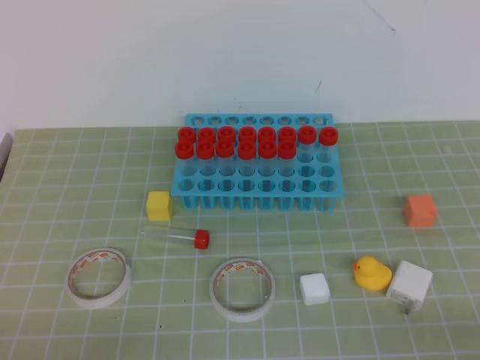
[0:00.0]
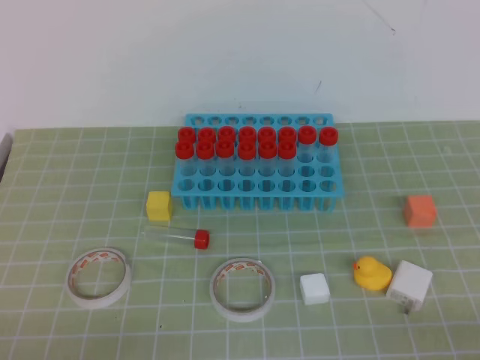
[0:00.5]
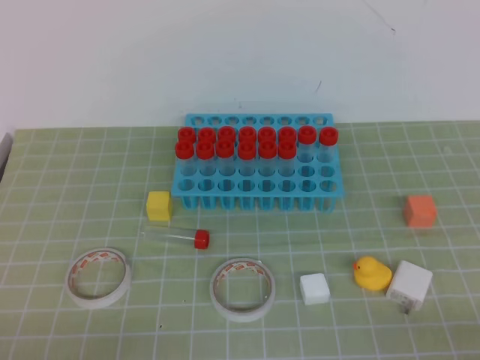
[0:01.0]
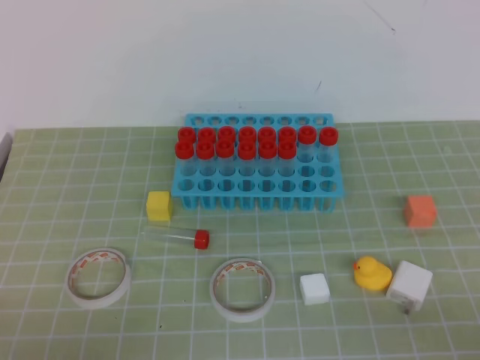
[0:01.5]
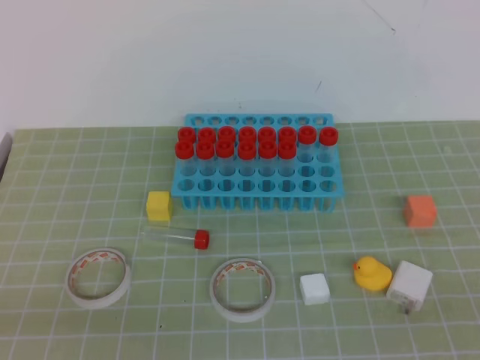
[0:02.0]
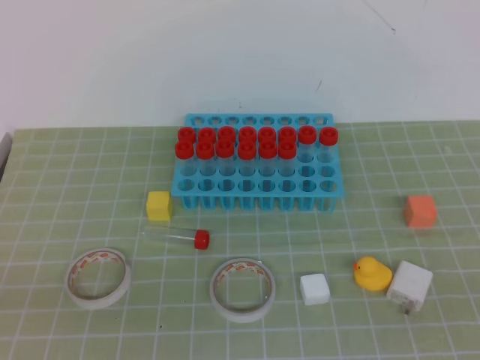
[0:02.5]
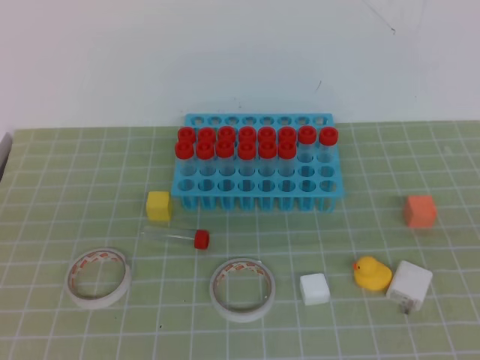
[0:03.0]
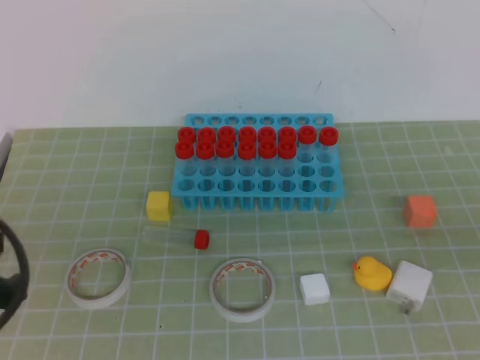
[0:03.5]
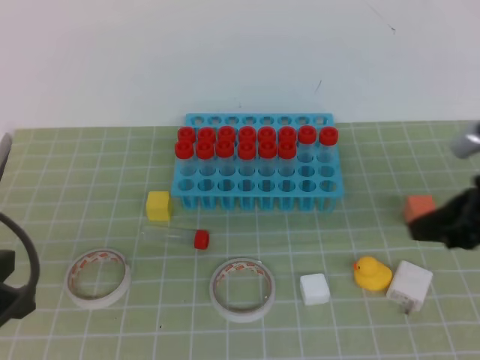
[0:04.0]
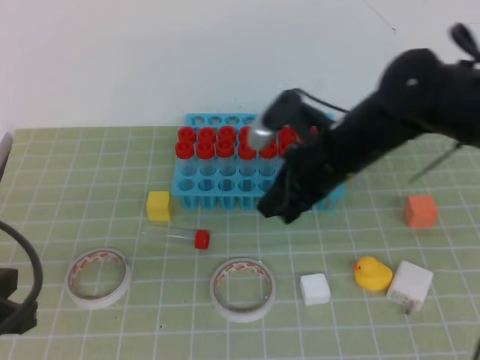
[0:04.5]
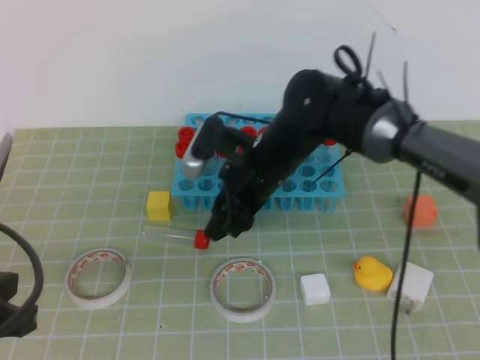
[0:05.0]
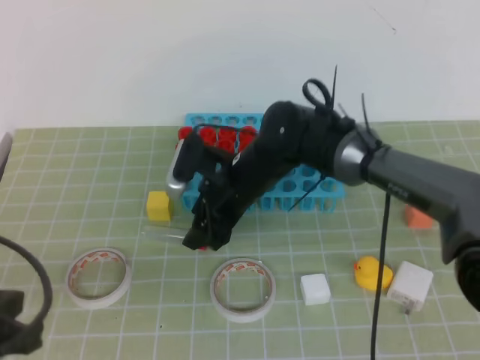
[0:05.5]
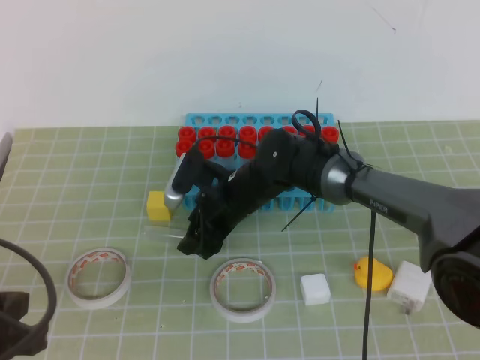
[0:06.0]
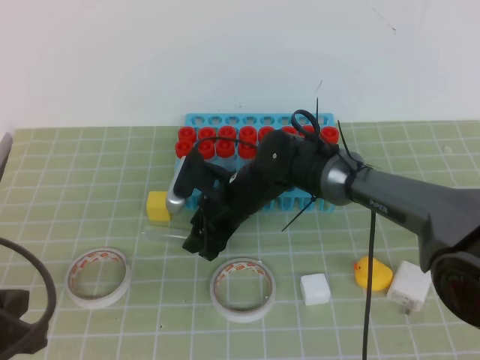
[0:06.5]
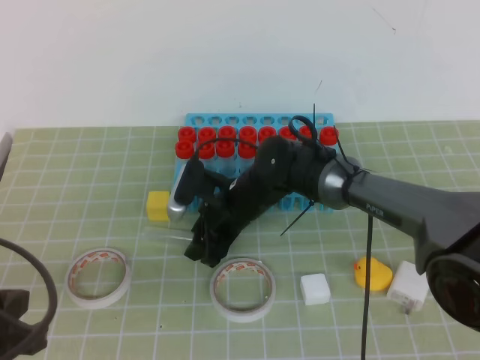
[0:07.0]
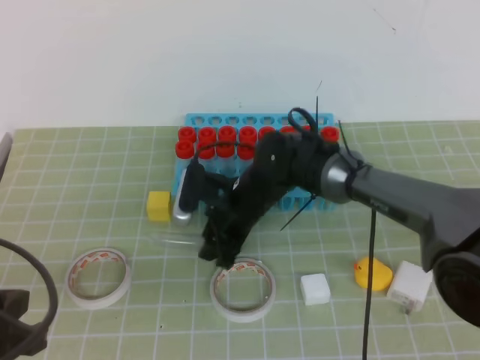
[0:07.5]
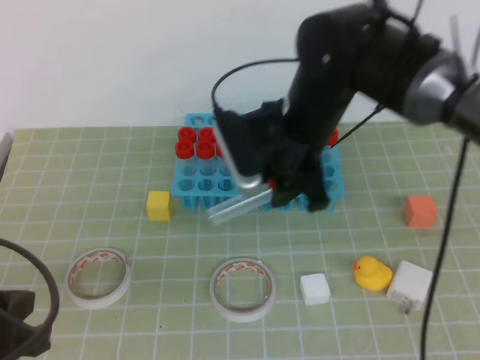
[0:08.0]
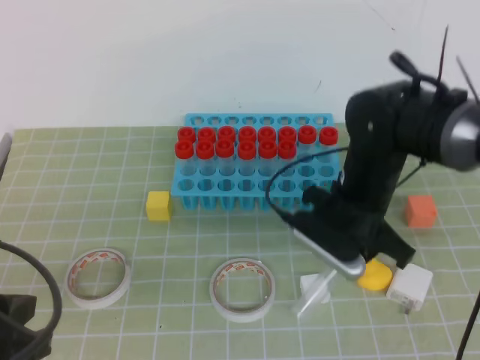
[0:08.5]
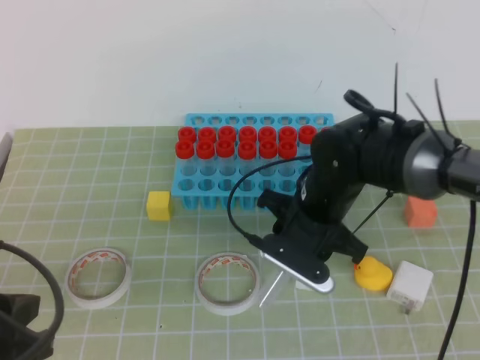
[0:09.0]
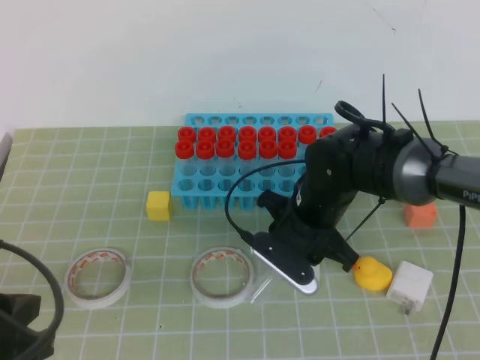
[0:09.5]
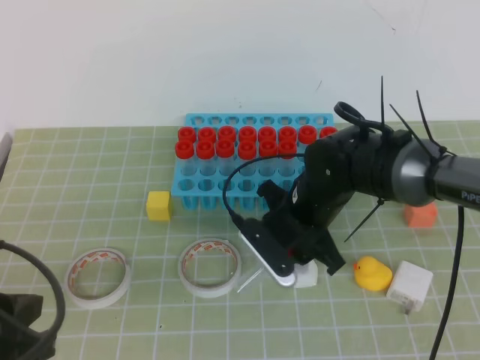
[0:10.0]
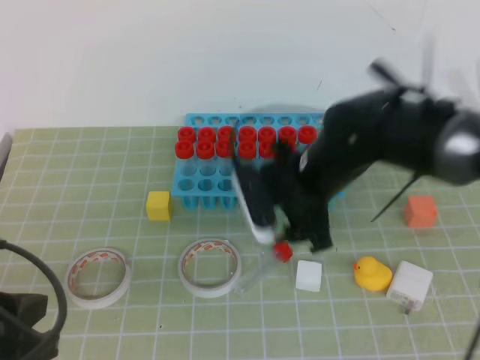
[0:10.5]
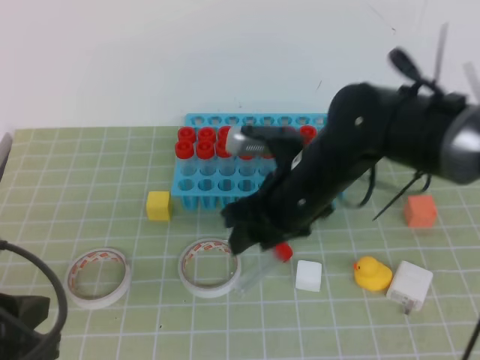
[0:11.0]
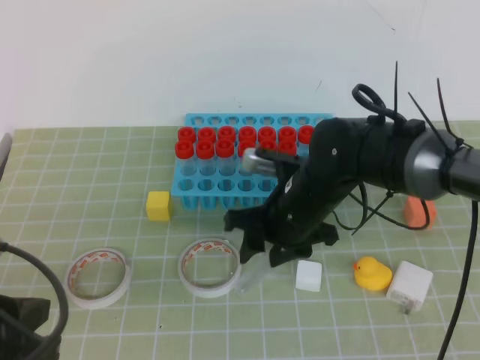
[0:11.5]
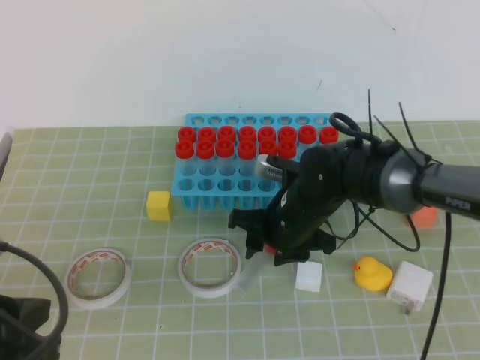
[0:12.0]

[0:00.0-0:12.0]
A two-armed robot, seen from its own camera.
2.0 to 4.0 s: The left gripper goes some 15 cm forward and upward; the right gripper is displaced forward by about 25 cm.
4.0 to 6.0 s: The right gripper heads to the left, forward and downward, covering some 35 cm, and opens its fingers.
6.0 to 8.0 s: The right gripper travels upward and to the right by approximately 15 cm, and closes up.
8.0 to 10.0 s: The right gripper is displaced downward by approximately 10 cm.
10.0 to 12.0 s: The right gripper goes upward and returns, approximately 5 cm each way.

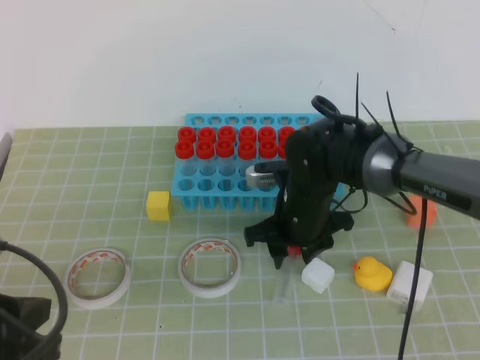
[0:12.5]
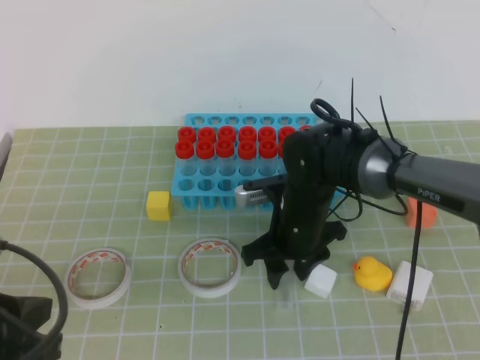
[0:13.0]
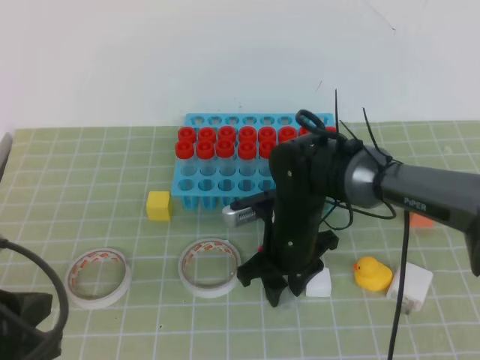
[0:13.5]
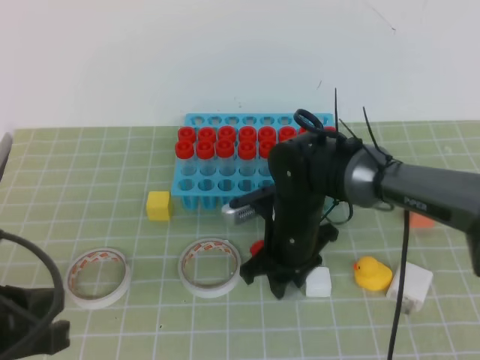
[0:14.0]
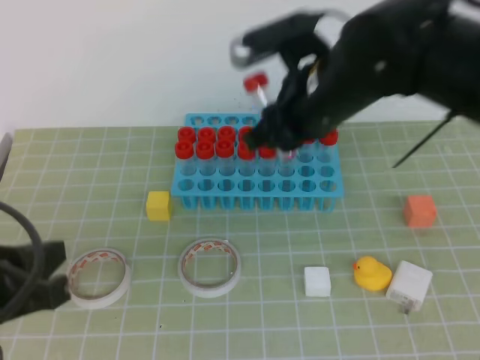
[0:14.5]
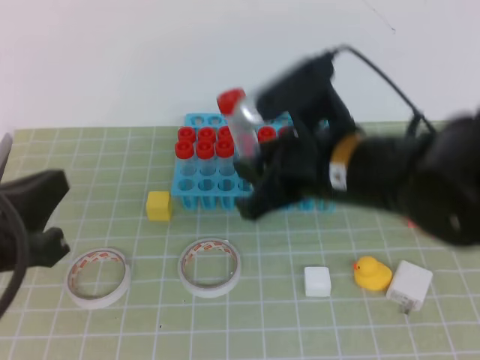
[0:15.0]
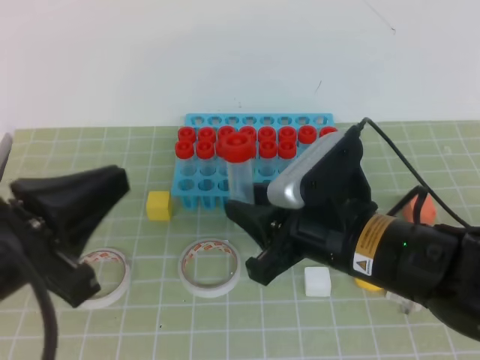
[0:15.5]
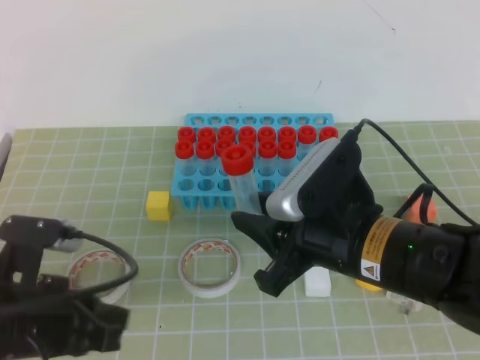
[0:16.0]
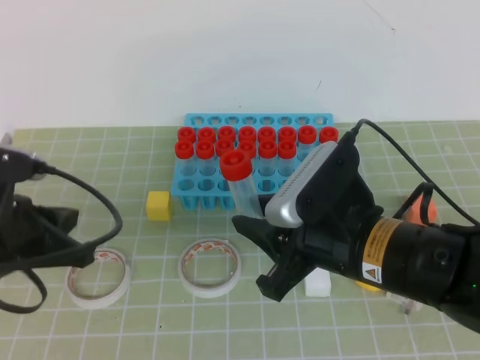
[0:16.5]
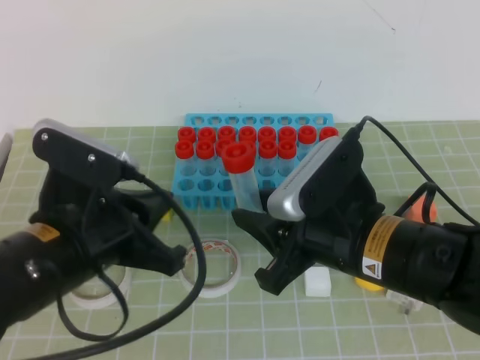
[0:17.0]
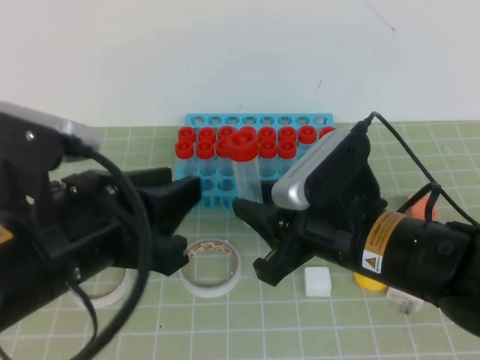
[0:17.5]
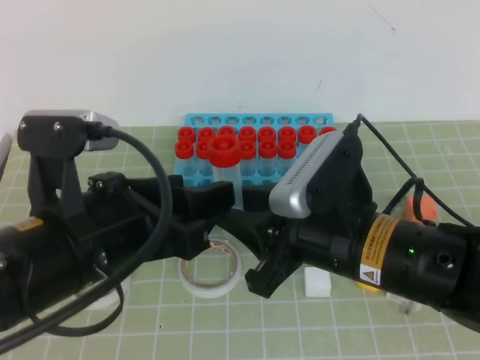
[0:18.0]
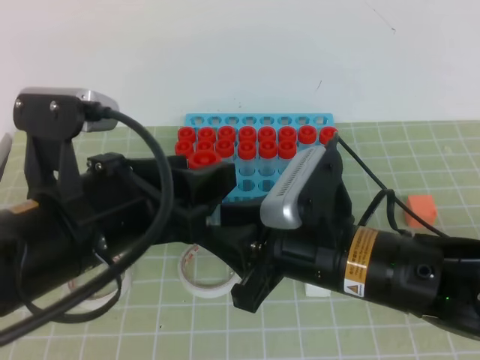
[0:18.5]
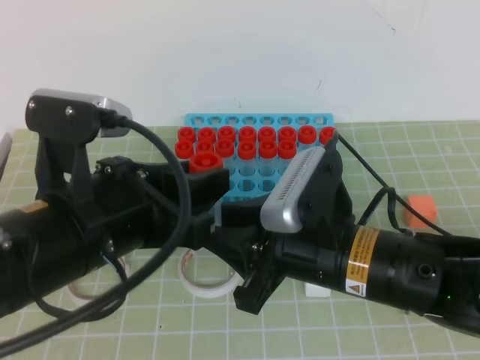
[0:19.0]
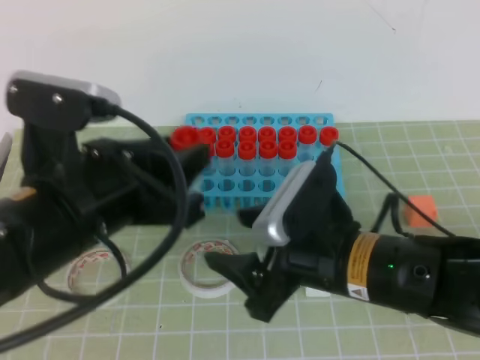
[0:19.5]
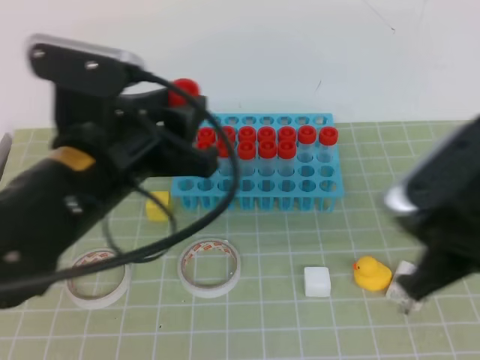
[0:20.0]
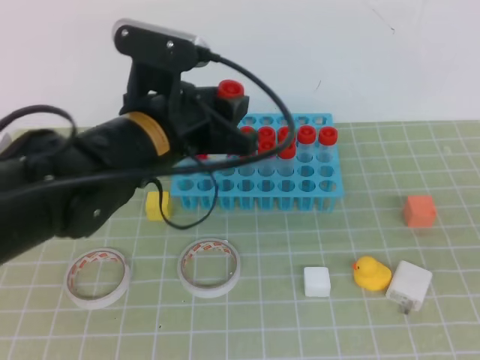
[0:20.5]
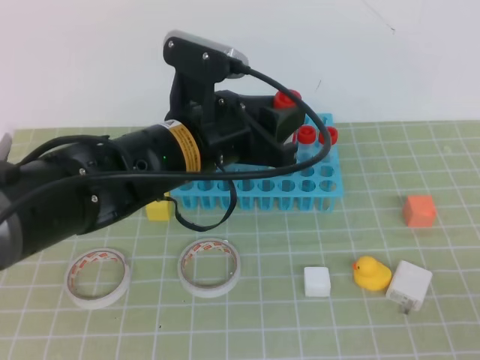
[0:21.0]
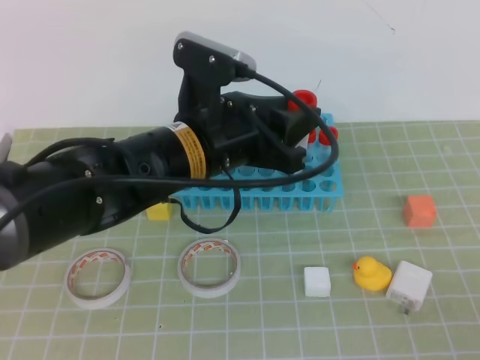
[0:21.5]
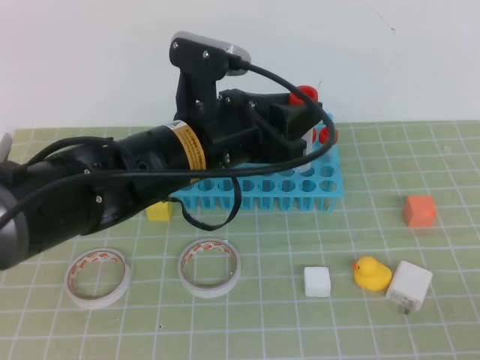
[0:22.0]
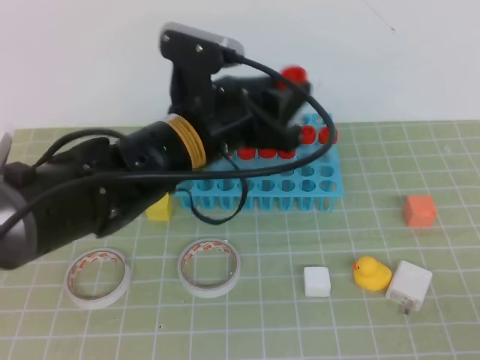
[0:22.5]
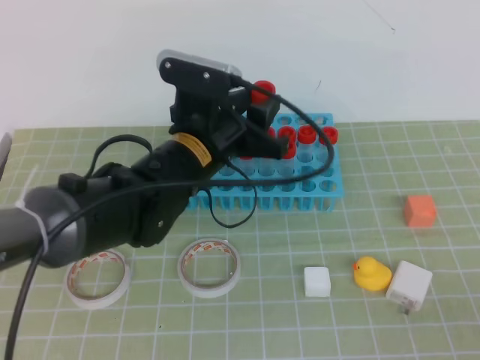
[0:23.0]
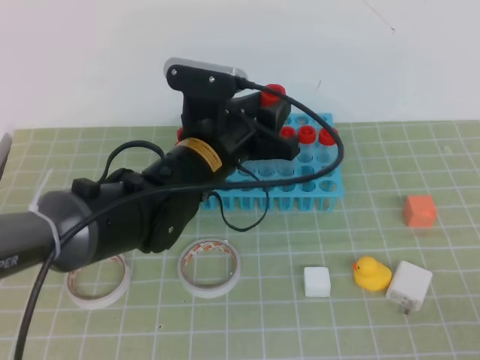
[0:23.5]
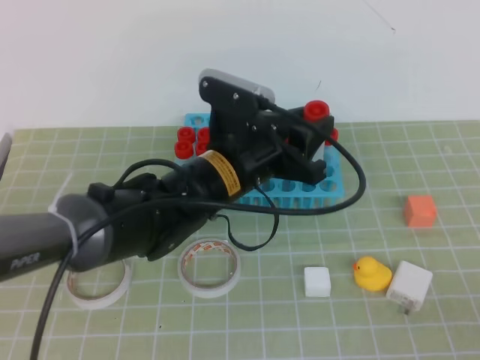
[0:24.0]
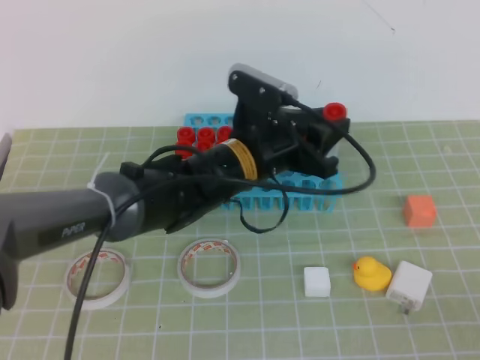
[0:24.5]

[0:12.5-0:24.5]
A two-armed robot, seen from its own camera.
12.5 to 14.5 s: The right gripper is displaced upward by approximately 15 cm.
14.5 to 16.5 s: The right gripper moves backward and downward, roughly 15 cm; the left gripper moves forward, about 5 cm.
16.5 to 18.5 s: The left gripper heads to the right and upward, covering about 10 cm, and opens its fingers.
18.5 to 20.5 s: The right gripper is displaced to the right, backward and upward by approximately 25 cm, and closes its fingers; the left gripper goes approximately 10 cm forward, and closes its fingers.
20.5 to 22.5 s: The right gripper heads backward, covering some 10 cm.
22.5 to 24.5 s: The left gripper is displaced downward and forward by approximately 10 cm.

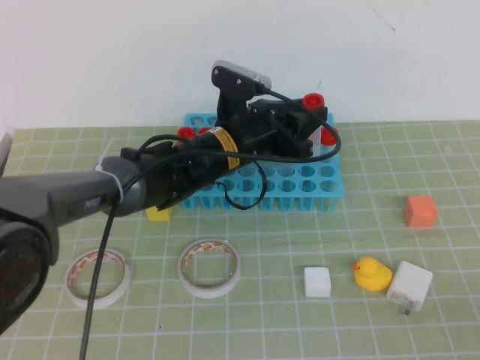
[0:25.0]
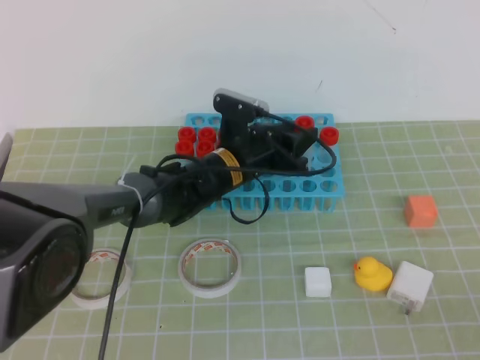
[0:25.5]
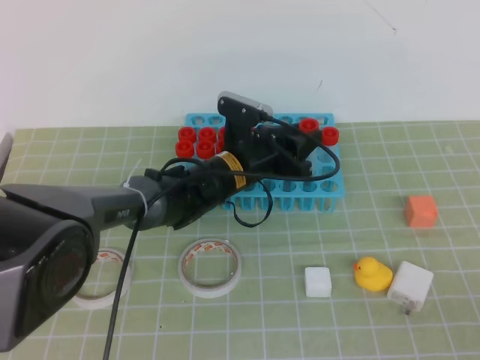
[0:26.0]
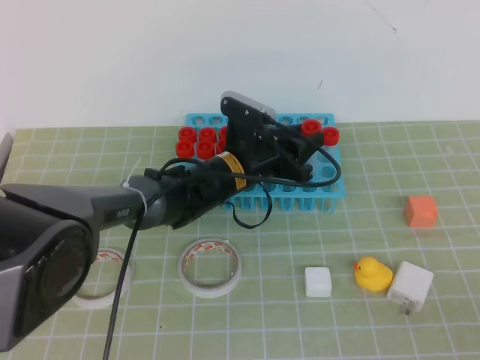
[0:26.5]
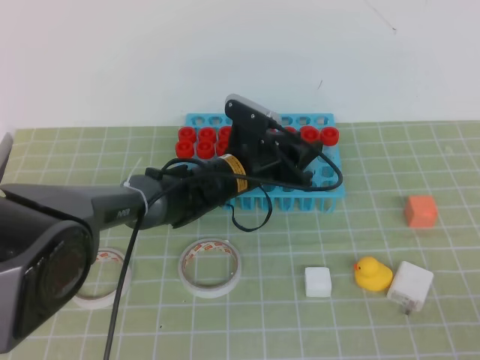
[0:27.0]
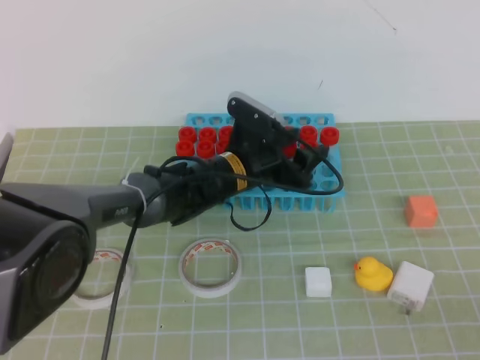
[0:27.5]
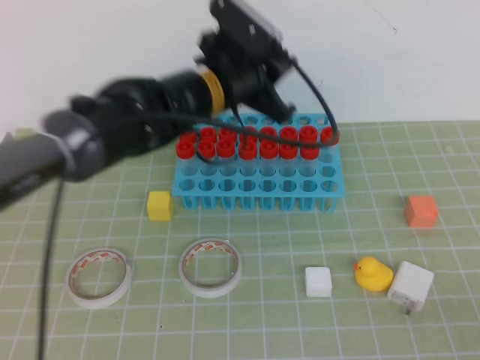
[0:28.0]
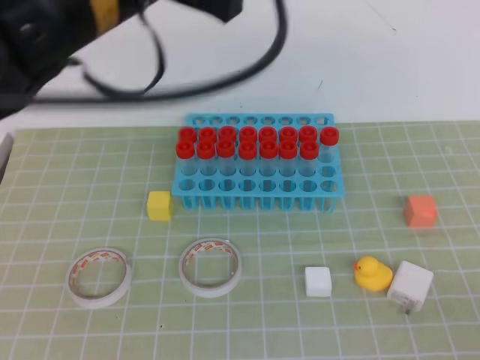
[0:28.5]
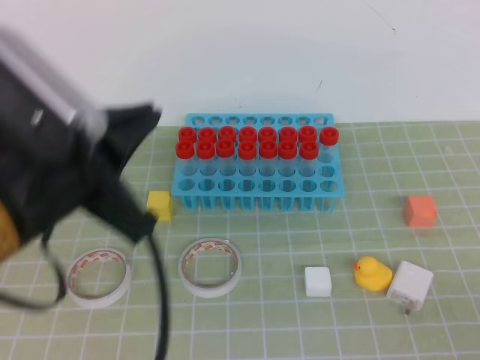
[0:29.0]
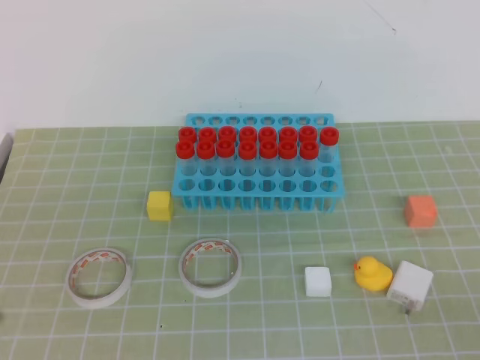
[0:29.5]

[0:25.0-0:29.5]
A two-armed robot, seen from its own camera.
25.0 to 27.0 s: The left gripper moves downward, approximately 5 cm.
27.0 to 29.5 s: The left gripper shifts roughly 40 cm backward, to the left and upward, and closes its fingers.
